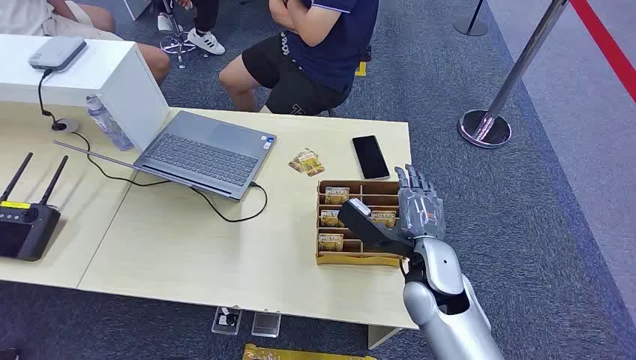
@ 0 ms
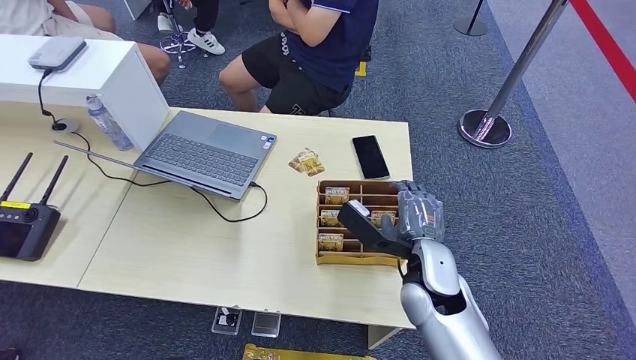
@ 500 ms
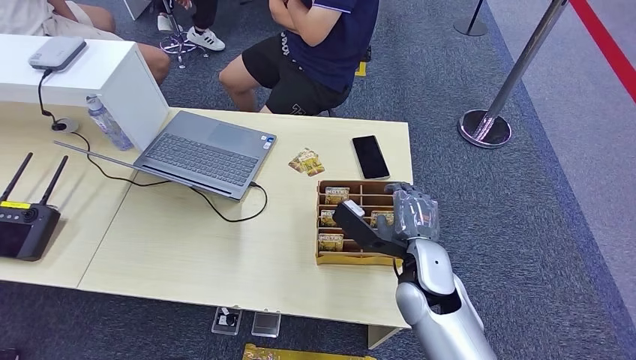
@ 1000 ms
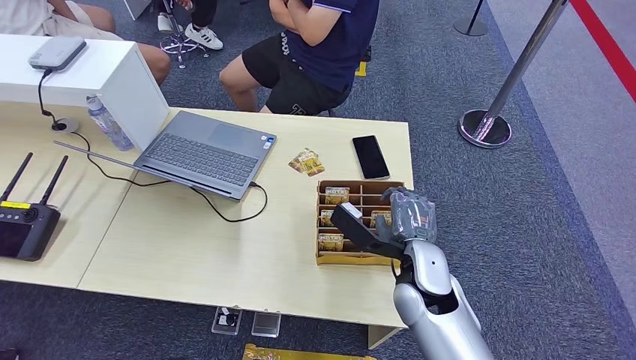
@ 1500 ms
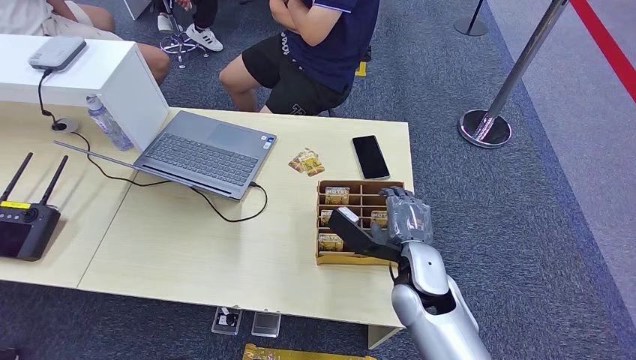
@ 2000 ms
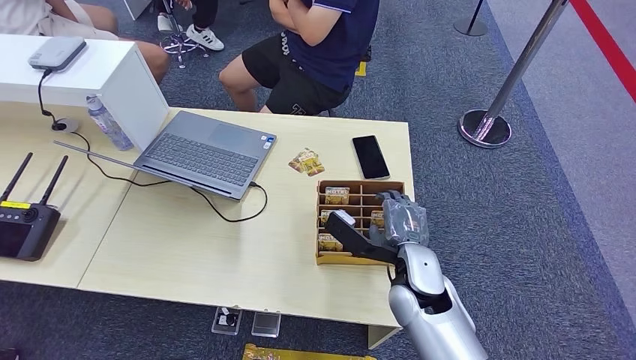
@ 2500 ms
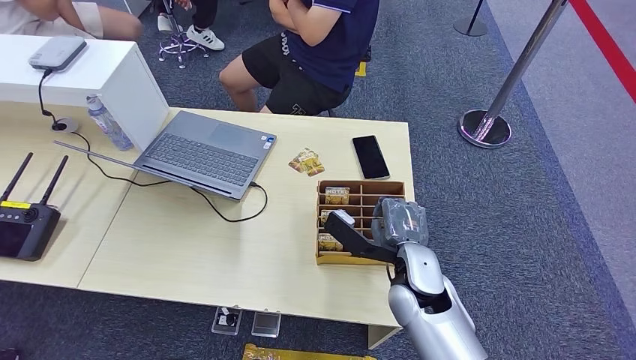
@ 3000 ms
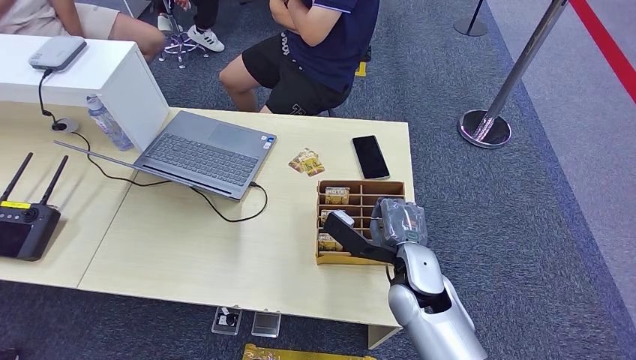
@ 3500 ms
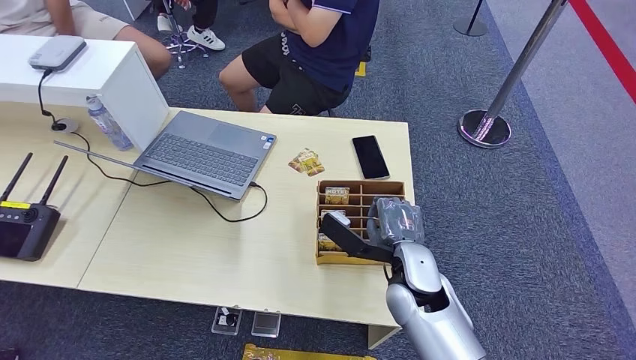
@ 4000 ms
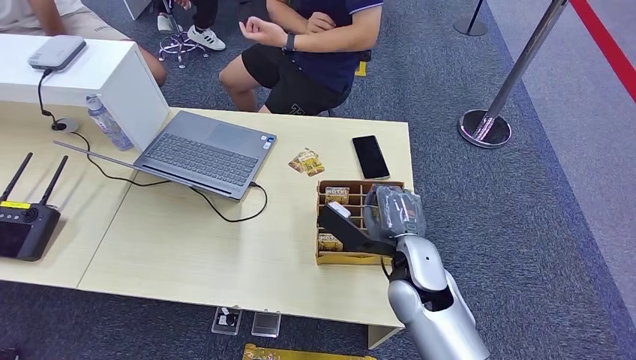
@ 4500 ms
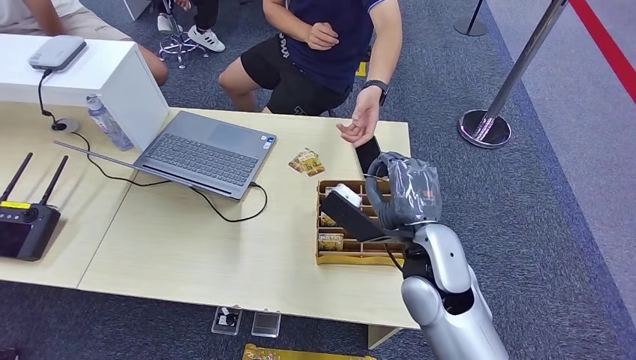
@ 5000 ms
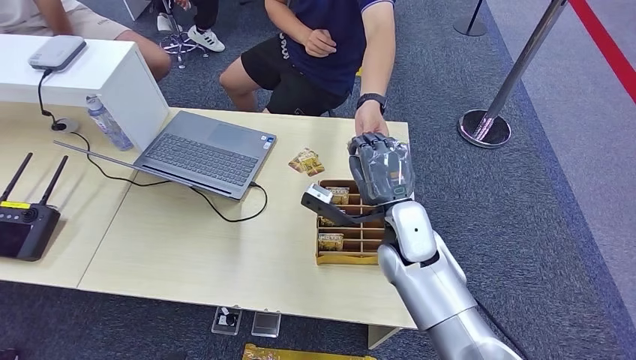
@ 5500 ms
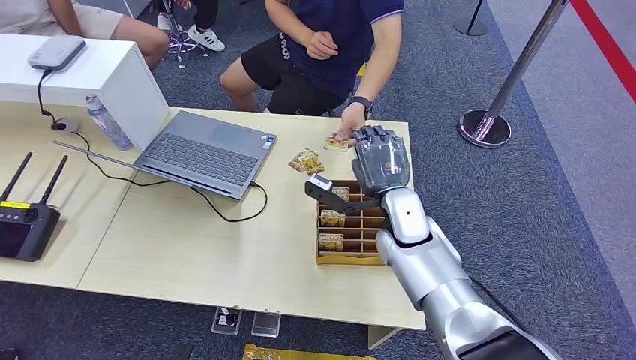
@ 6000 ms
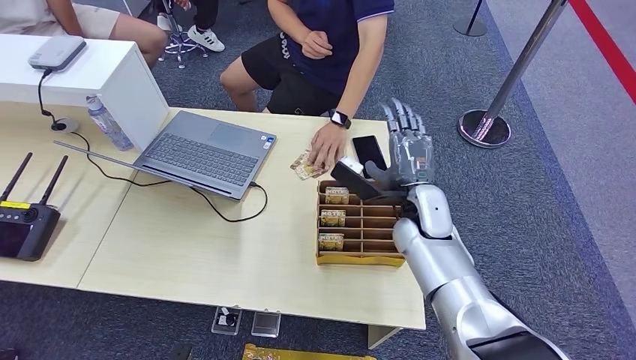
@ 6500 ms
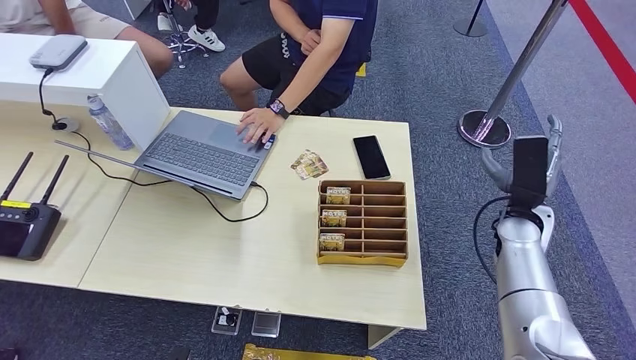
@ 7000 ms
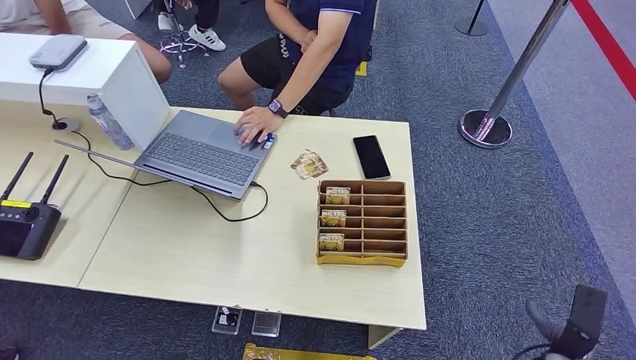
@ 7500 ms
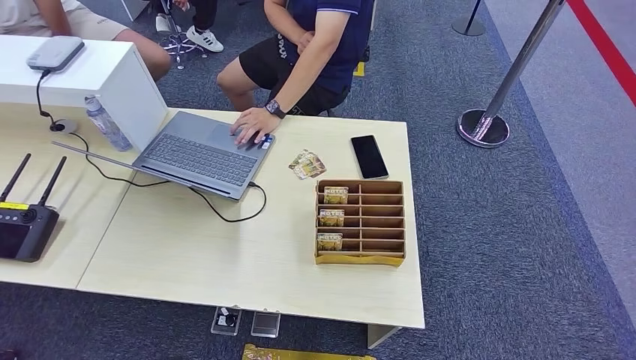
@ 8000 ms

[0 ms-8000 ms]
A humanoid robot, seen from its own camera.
Step, 0 ms to 4000 ms: Pick up the key card from the card box.
Step, 5000 ms to 8000 ms: Hand the key card to the target.
2000 ms to 4000 ms: The hands move only a little.
4000 ms to 6000 ms: The right hand goes approximately 10 cm forward.
6000 ms to 8000 ms: The right hand travels backward, downward and to the right by roughly 50 cm.
